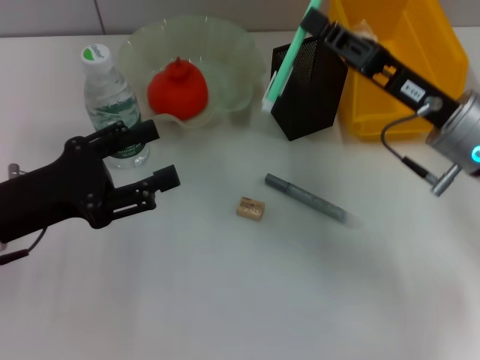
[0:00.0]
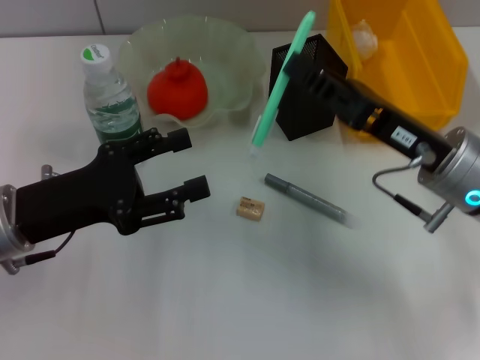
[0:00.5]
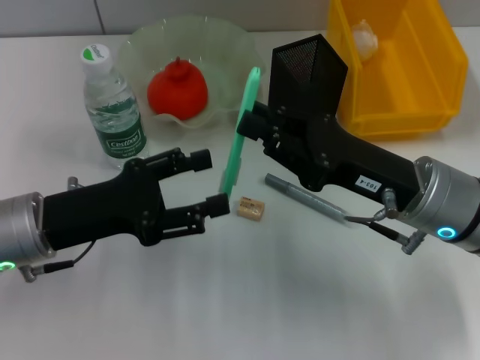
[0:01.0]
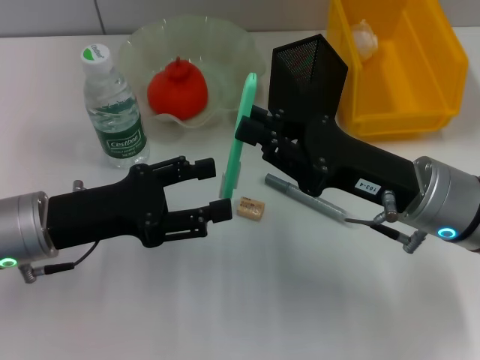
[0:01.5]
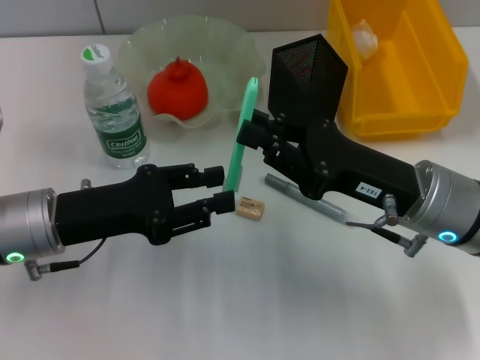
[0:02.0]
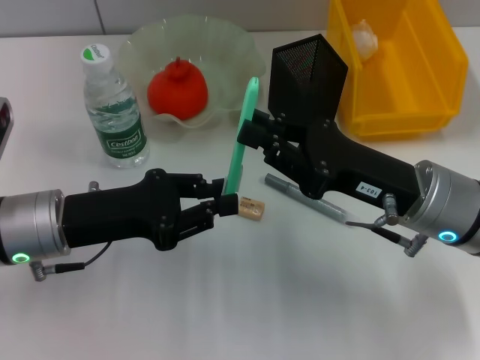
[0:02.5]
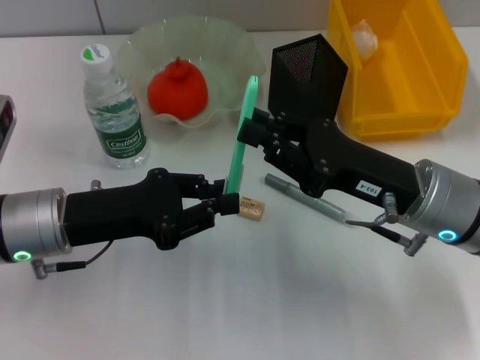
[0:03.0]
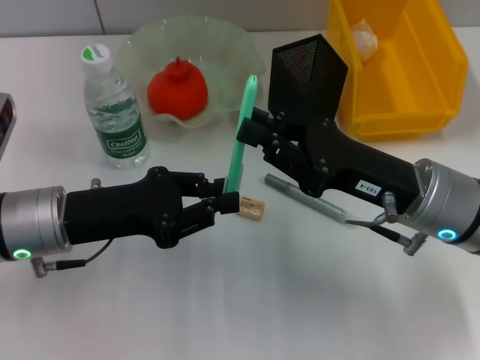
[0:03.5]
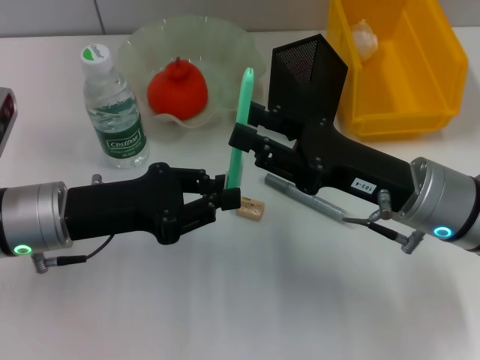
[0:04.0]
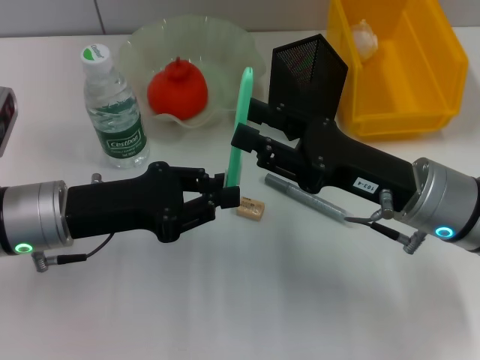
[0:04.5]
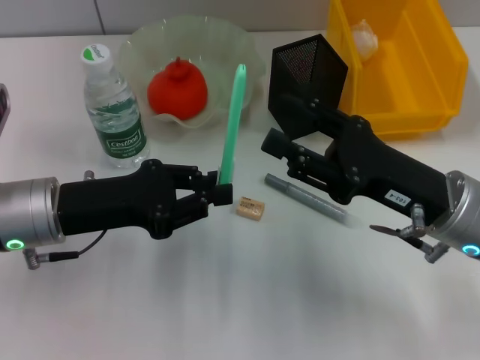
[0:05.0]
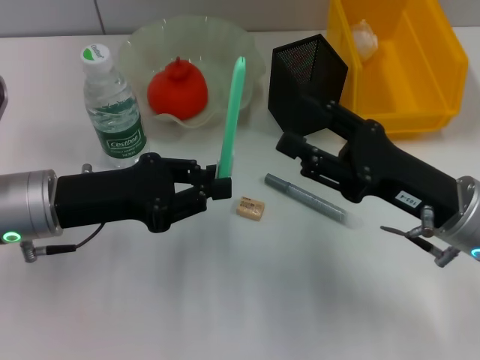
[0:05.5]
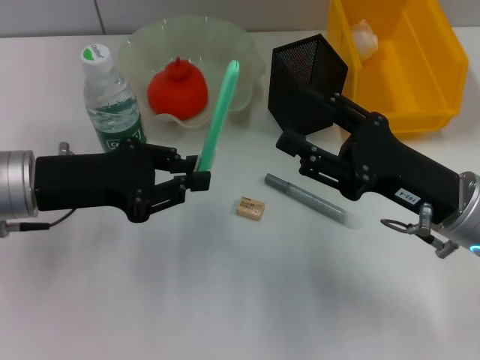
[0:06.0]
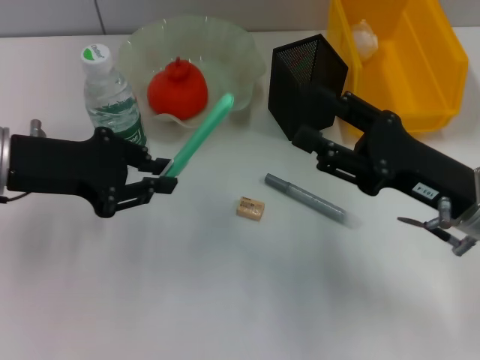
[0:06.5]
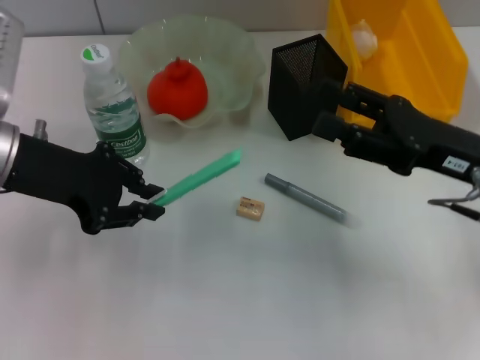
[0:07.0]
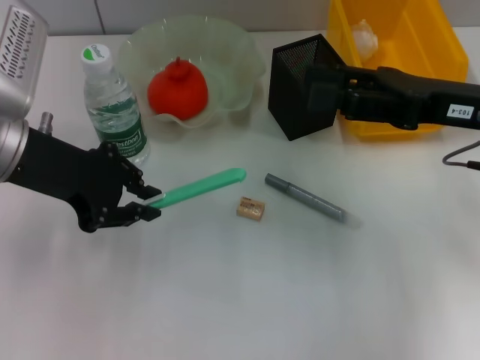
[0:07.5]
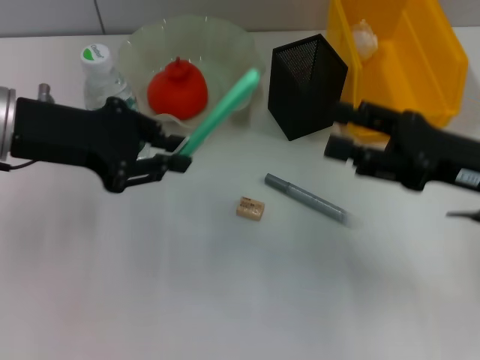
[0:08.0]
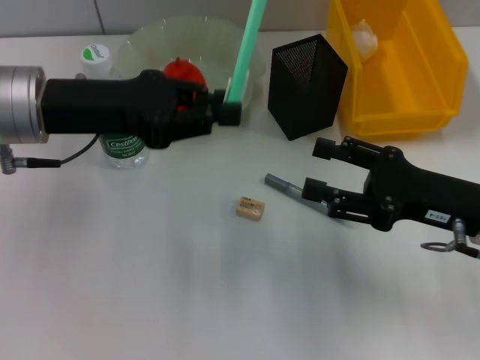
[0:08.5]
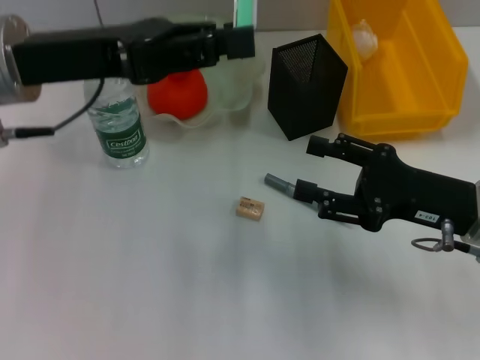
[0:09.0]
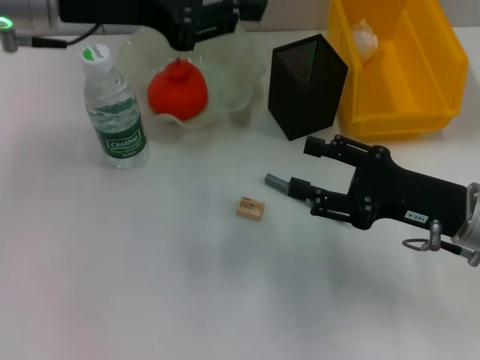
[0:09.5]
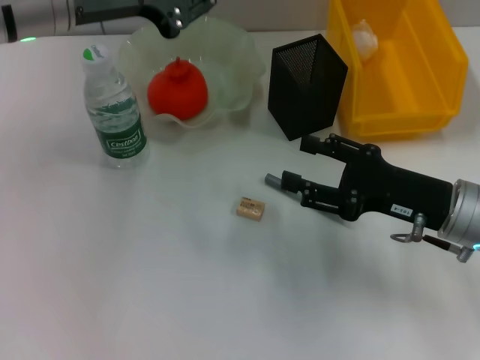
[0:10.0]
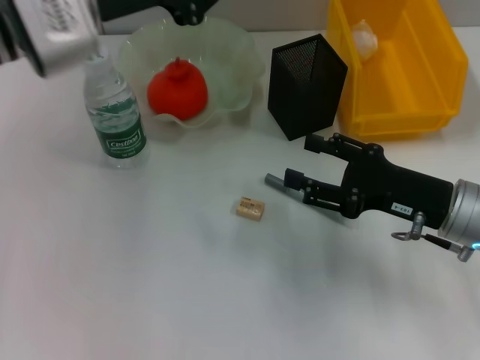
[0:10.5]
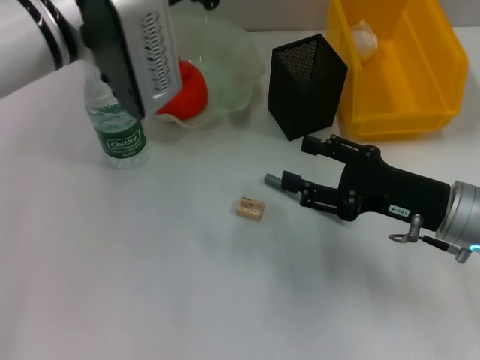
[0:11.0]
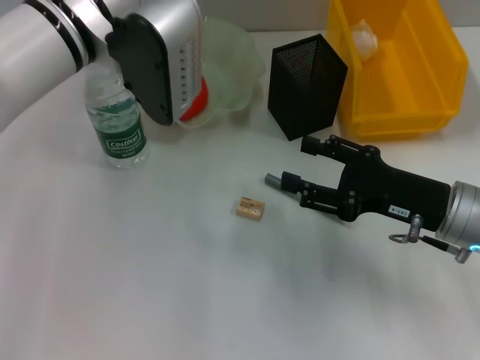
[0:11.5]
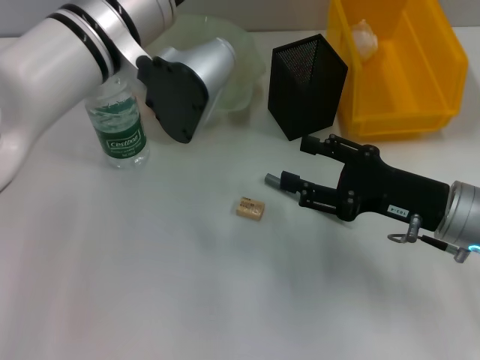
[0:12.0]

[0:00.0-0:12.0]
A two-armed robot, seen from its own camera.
Step, 0:00.0 to 0:03.5: Pass the blue utility knife from the right hand to the left hand.
0:00.0 to 0:02.0: The right gripper changes place by some 5 cm.
0:02.0 to 0:04.0: The left gripper closes up.
0:04.0 to 0:06.0: The right gripper opens up.
0:06.0 to 0:08.0: The right gripper goes about 5 cm to the right. Meanwhile the left gripper heads upward, covering roughly 5 cm.
0:08.0 to 0:10.0: The right gripper ends up approximately 5 cm from where it was, while the left gripper goes roughly 5 cm forward.
0:10.0 to 0:12.0: The left gripper heads to the right, covering approximately 10 cm.

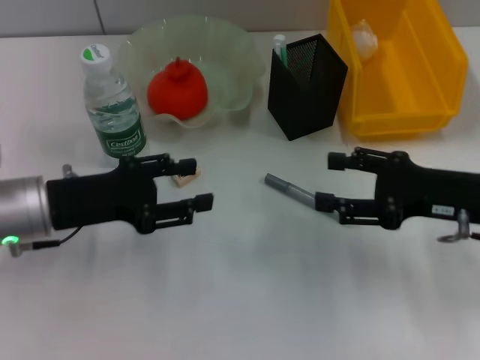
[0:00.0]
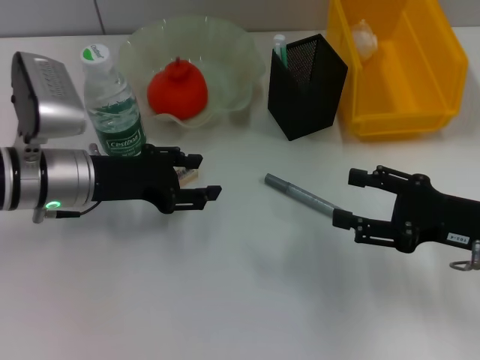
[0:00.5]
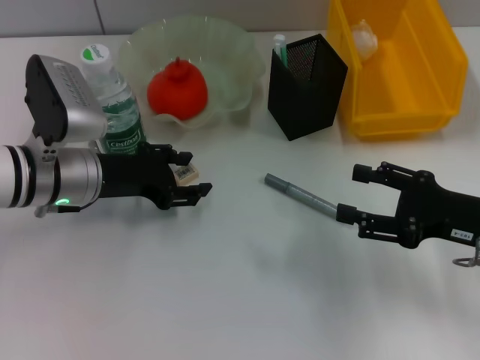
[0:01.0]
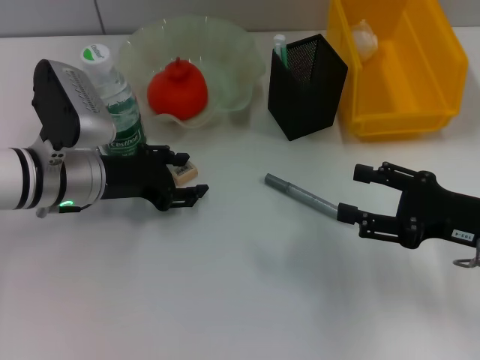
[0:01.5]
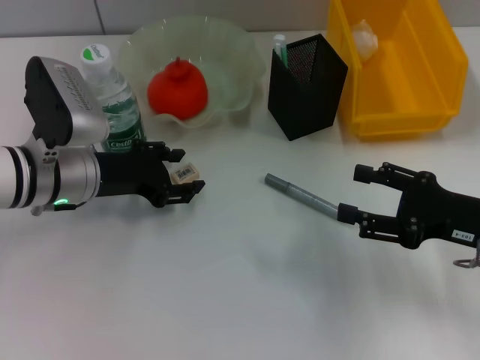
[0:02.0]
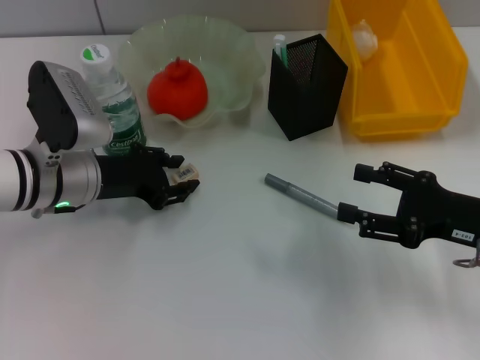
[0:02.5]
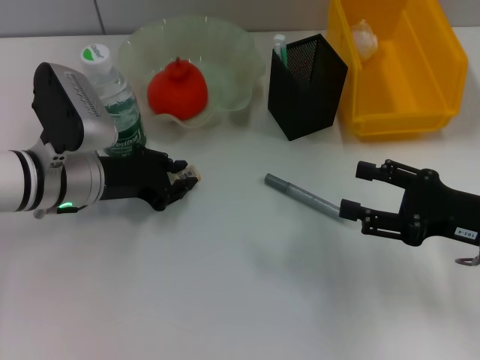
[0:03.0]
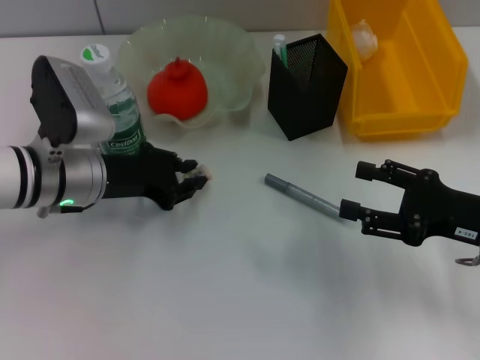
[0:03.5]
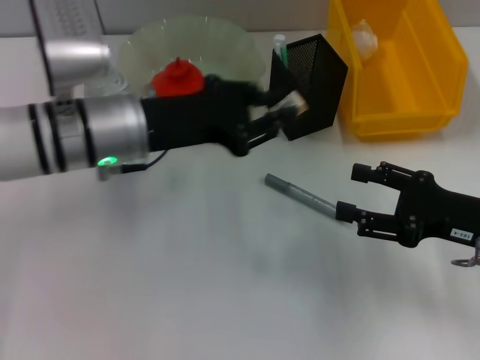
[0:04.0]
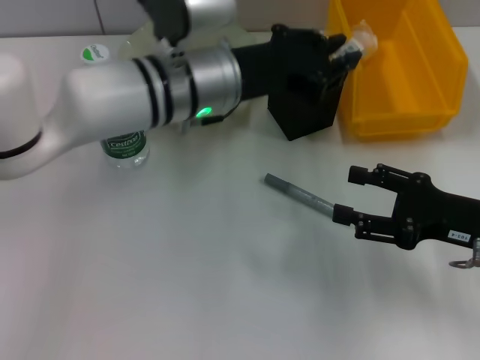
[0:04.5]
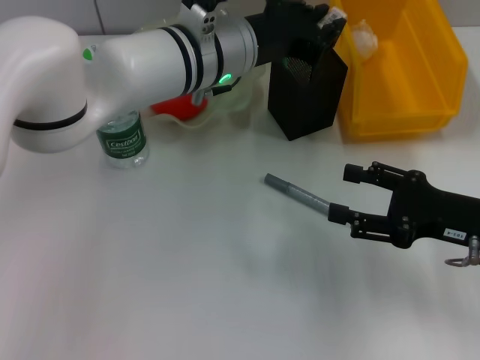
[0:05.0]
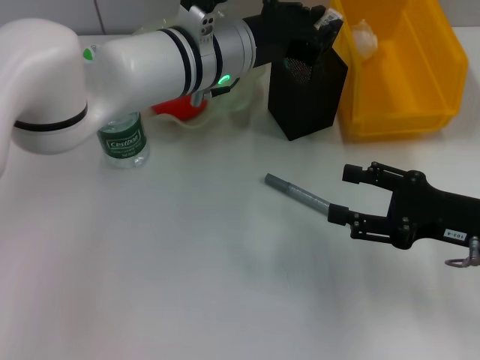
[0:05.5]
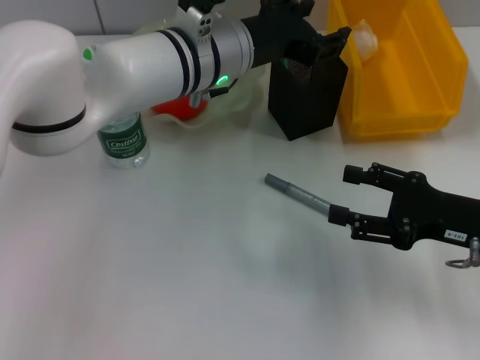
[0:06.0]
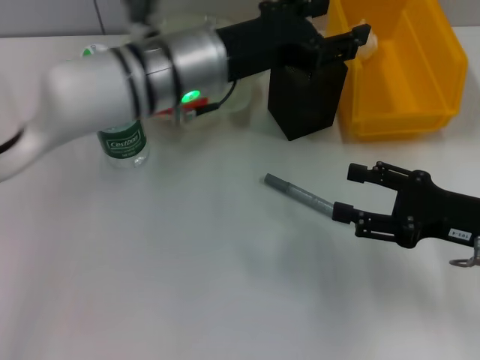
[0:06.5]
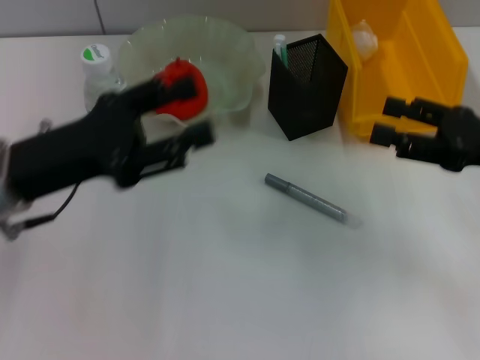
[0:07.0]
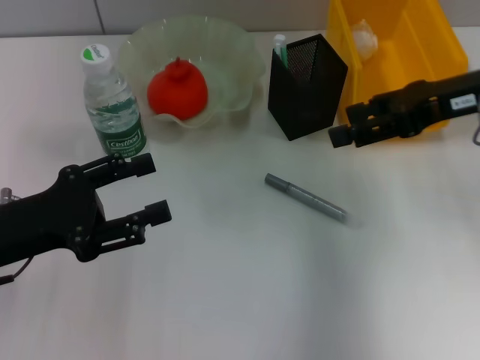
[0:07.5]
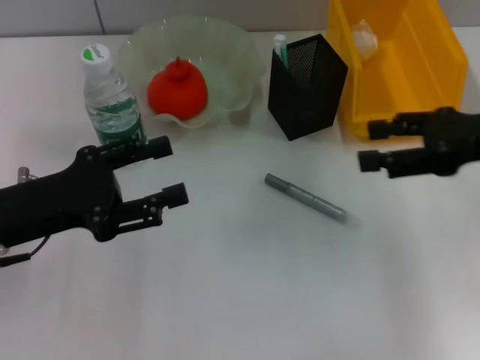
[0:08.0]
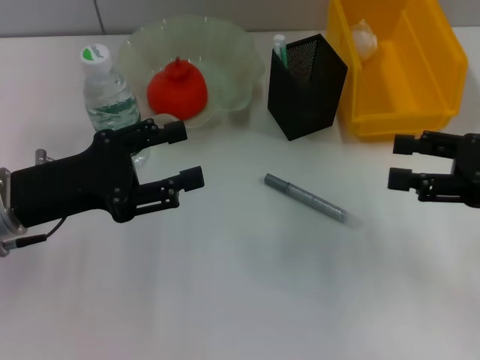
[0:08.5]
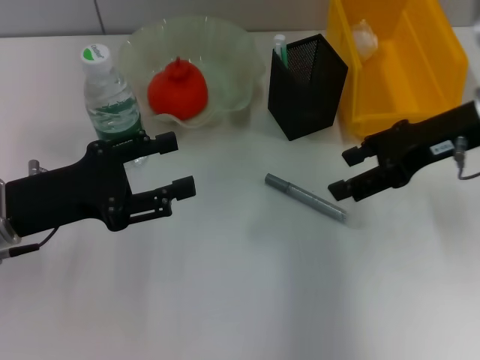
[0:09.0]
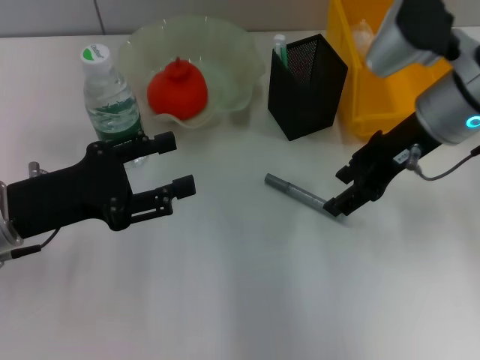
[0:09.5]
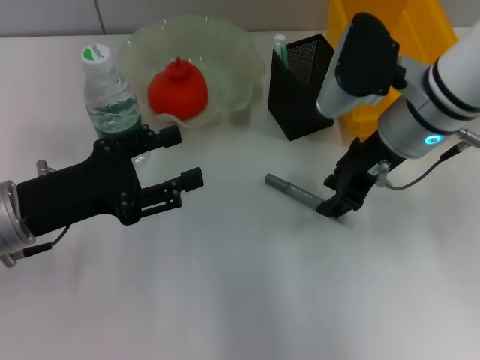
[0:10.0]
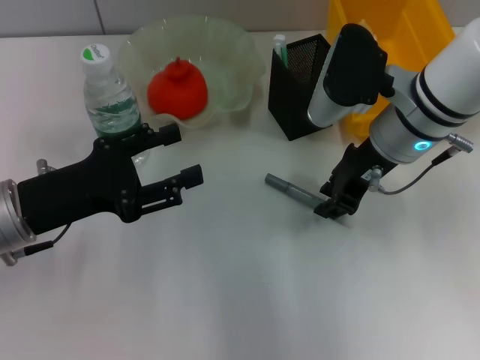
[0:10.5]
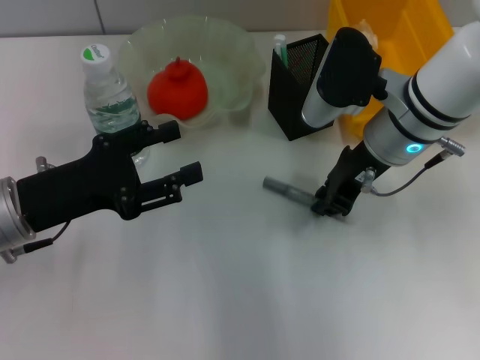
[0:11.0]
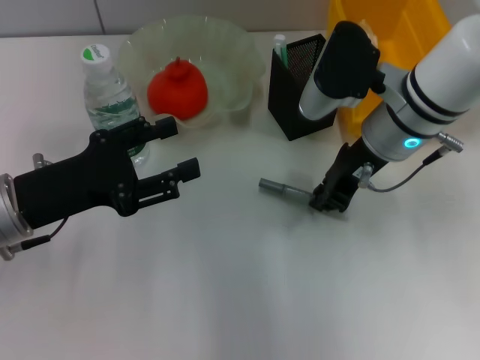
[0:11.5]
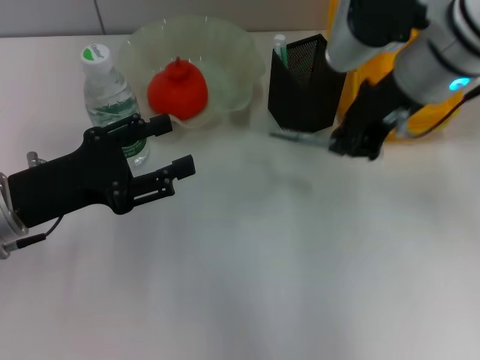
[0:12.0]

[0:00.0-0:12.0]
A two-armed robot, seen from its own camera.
Step, 0:00.0 to 0:03.0: Grab the eraser with the left hand.
Step, 0:03.5 to 0:05.5: Place the eraser into the pen holder with the left hand.
Step, 0:06.5 to 0:11.0: Grab the gray glue with the right hand.
0:00.0 to 0:02.0: The left gripper changes place by approximately 5 cm.
0:02.0 to 0:04.0: The left gripper shifts some 10 cm upward and to the right, and closes up.
0:04.0 to 0:06.0: The left gripper is displaced to the right and forward by about 10 cm, and opens its fingers.
0:06.0 to 0:08.0: The left gripper travels to the left and backward by approximately 25 cm. The right gripper goes about 10 cm upward and forward.
0:08.0 to 0:10.0: The right gripper is displaced to the left and forward by about 15 cm, and closes its fingers.
0:10.0 to 0:12.0: The right gripper travels upward by approximately 10 cm, and closes its fingers.

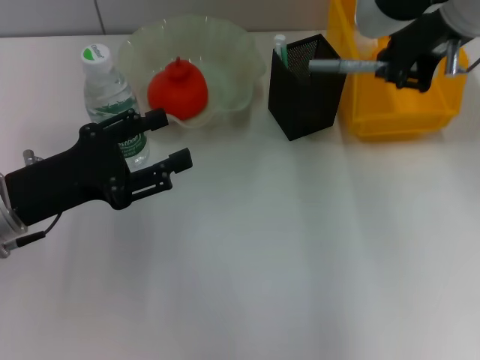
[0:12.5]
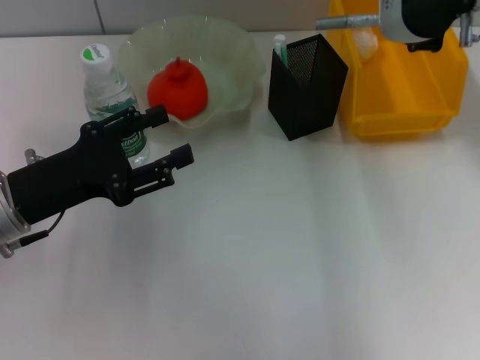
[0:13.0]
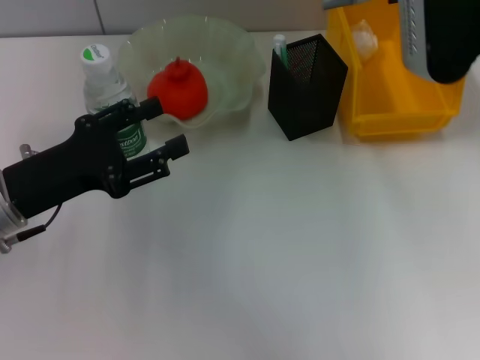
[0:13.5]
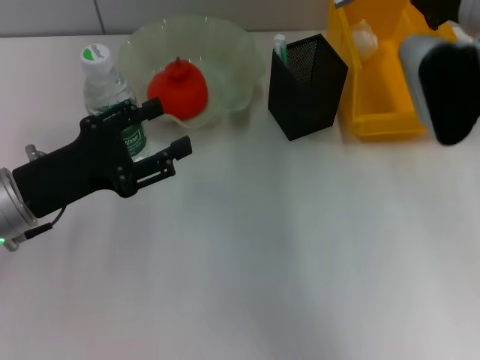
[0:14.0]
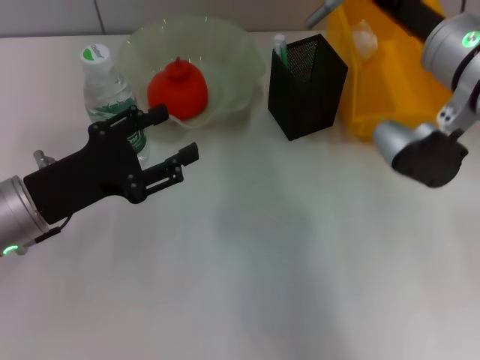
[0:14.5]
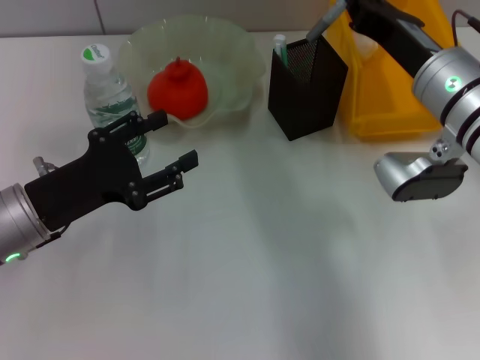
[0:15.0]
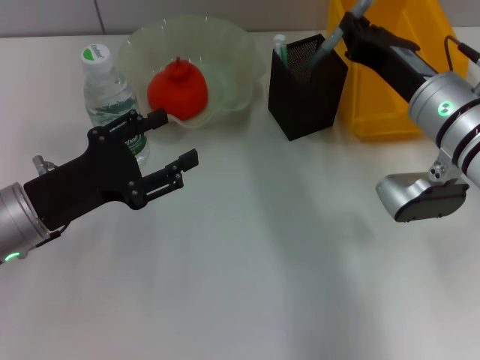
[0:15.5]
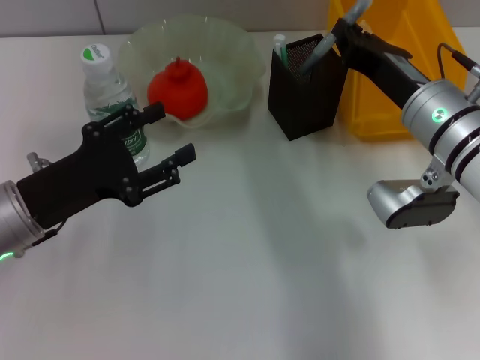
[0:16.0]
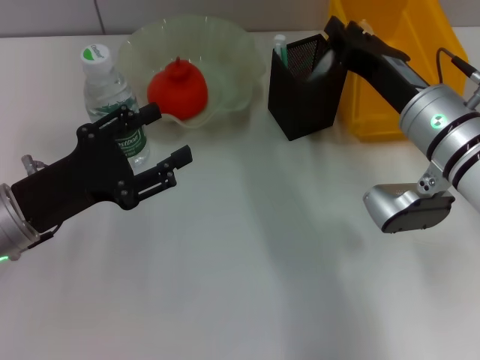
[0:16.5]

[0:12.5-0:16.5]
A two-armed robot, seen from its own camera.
Step, 0:12.5 to 0:16.5: Place the gray glue into the pen holder with the right hand.
0:12.5 to 0:14.5: The right gripper is displaced downward by some 10 cm.
0:14.5 to 0:16.5: The right gripper shifts approximately 5 cm downward.
